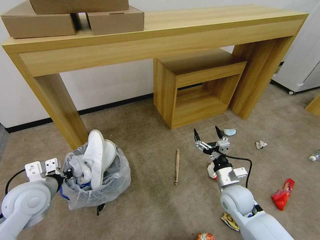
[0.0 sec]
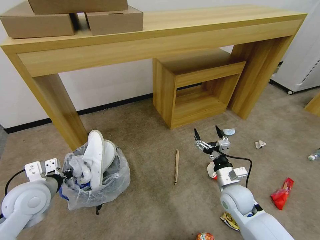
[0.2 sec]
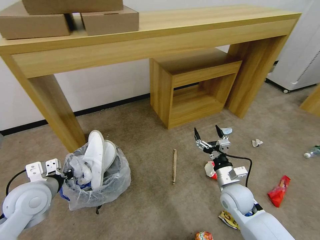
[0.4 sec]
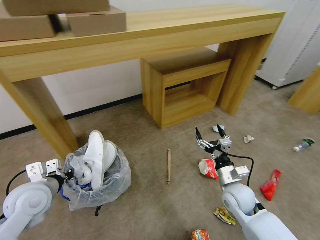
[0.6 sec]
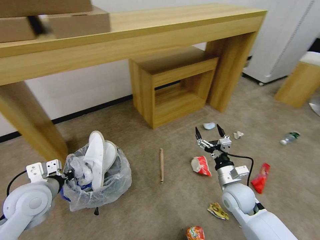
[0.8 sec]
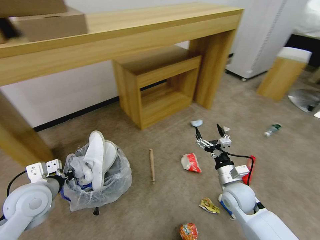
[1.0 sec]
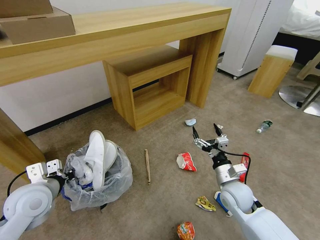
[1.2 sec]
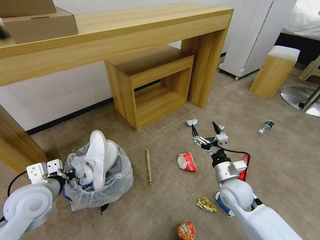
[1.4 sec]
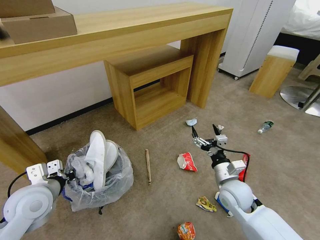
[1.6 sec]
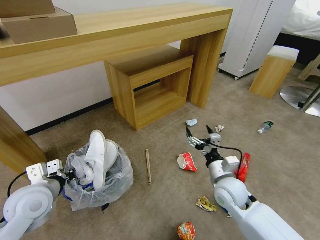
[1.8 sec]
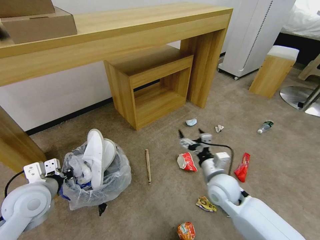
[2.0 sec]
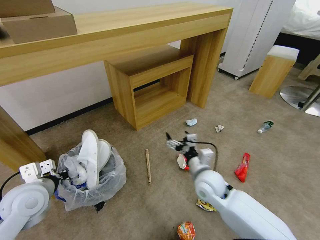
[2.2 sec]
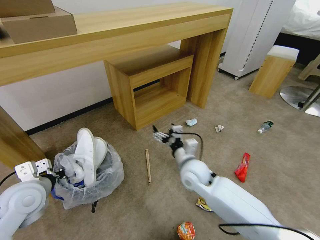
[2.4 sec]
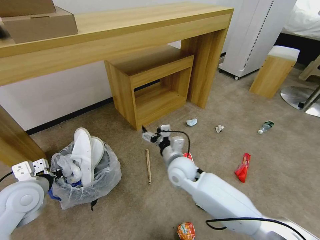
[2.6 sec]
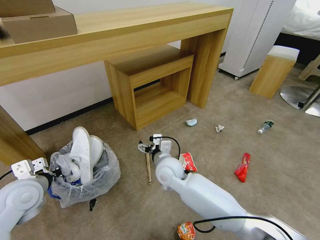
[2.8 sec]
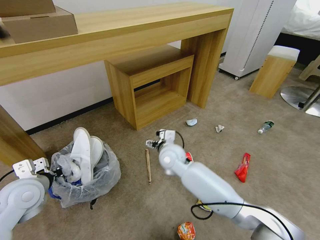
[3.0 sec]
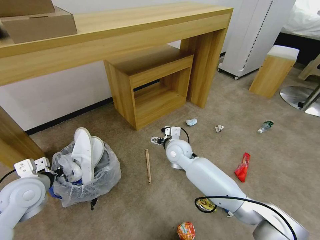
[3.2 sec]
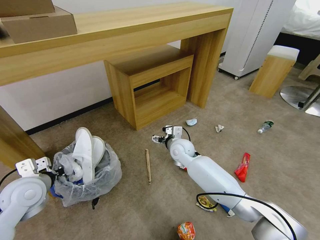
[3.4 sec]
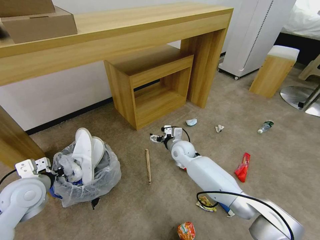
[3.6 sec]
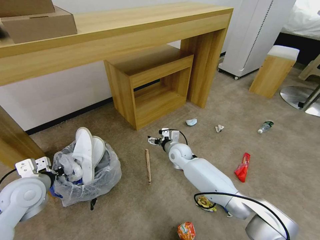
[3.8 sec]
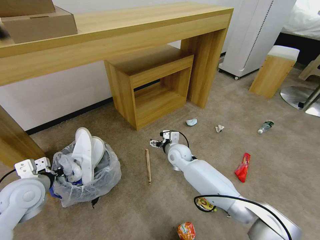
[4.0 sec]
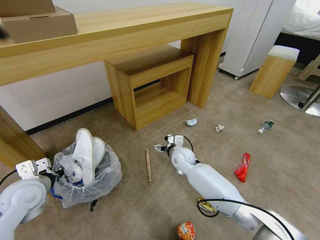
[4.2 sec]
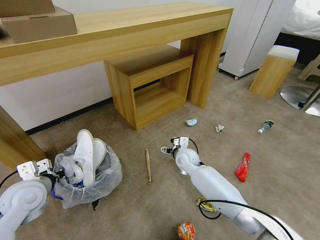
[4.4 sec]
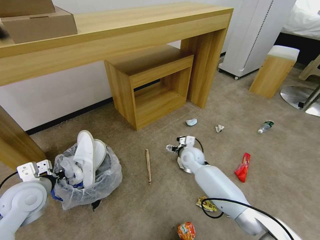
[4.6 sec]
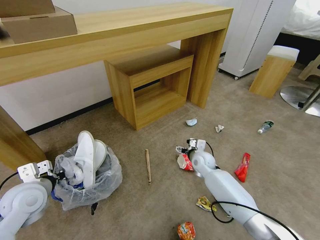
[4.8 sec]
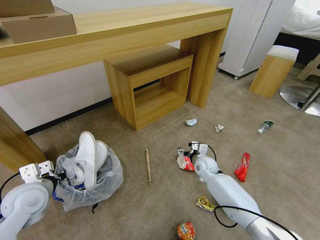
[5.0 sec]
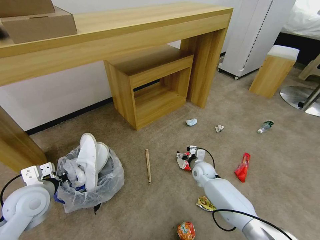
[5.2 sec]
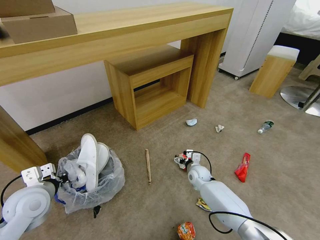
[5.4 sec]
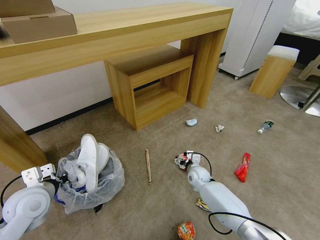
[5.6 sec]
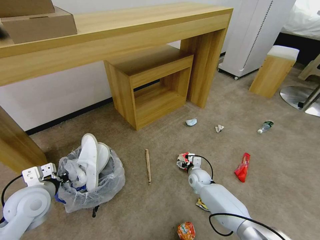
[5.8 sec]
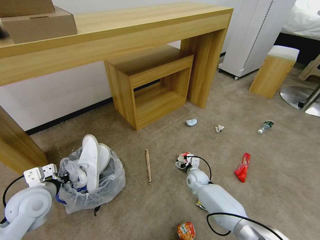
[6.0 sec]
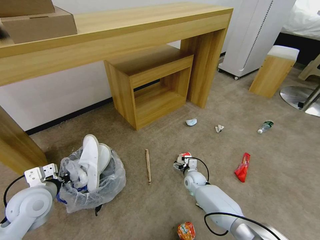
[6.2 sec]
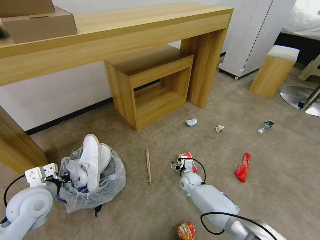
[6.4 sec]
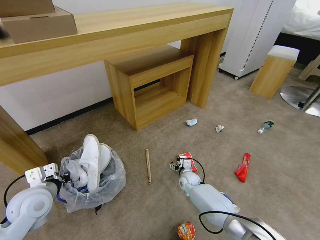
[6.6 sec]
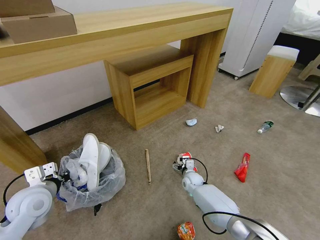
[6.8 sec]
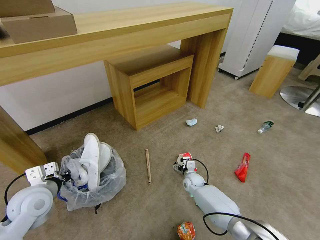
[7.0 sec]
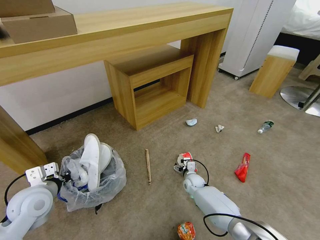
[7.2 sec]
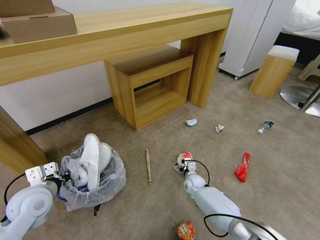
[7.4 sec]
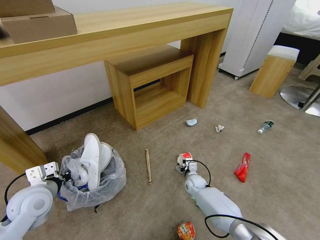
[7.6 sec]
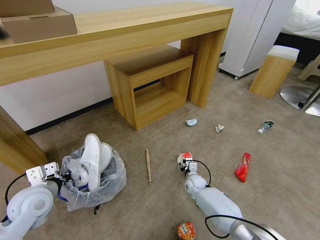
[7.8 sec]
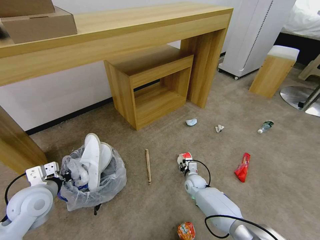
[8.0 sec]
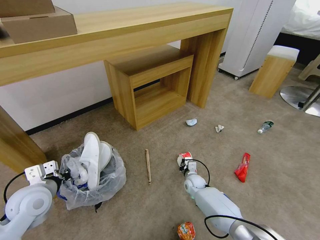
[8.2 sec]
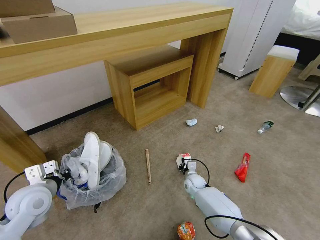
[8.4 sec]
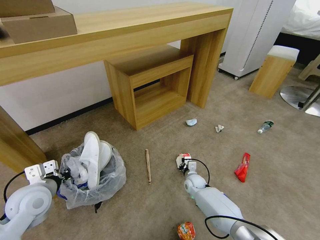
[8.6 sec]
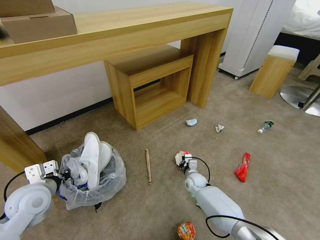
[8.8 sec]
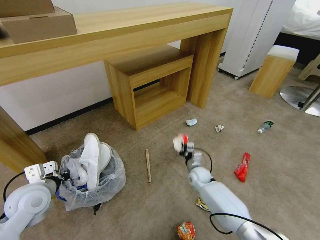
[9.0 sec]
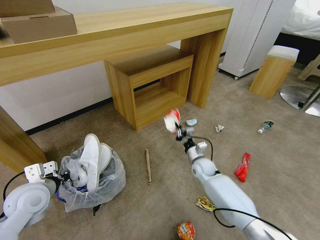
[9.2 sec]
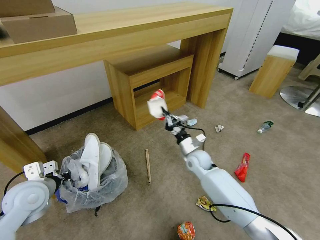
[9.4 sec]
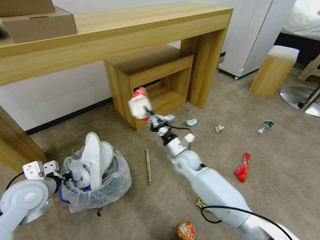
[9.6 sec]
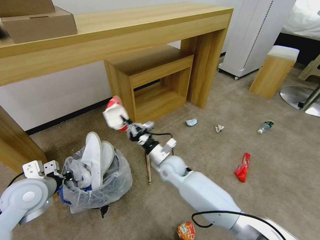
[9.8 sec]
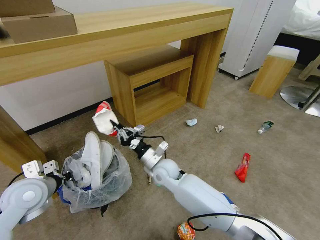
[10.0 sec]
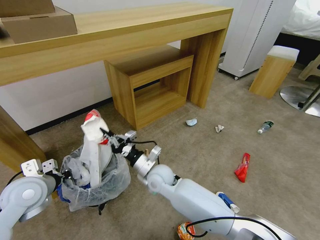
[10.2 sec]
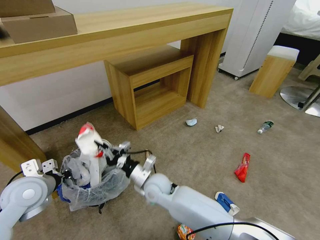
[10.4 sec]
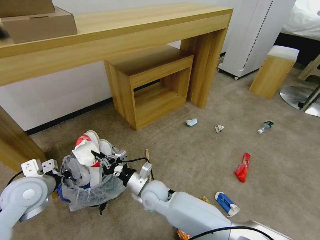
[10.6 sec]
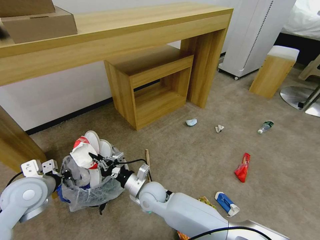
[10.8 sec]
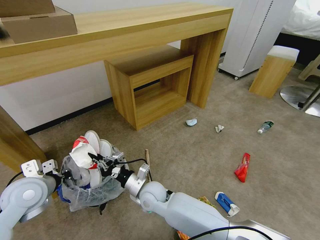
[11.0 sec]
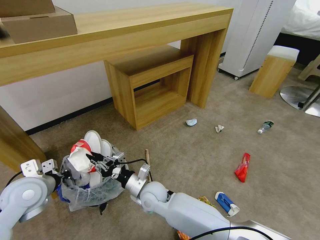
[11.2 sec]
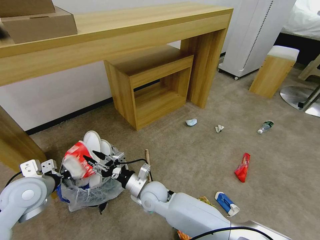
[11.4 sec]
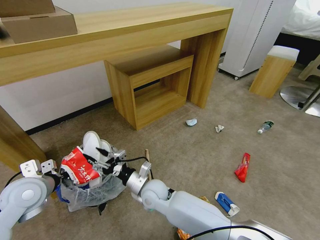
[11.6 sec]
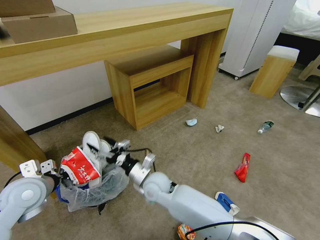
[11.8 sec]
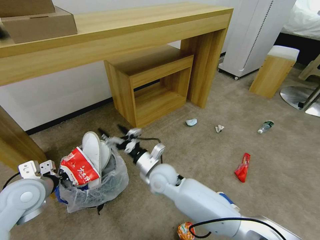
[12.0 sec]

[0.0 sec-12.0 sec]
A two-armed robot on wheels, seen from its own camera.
Task of the whole recording: Pick up the trash bin and place the garbage on the floor into it.
1.6 sec to 3.0 sec: The right gripper shifts about 25 cm to the left and forward.
3.0 sec to 4.4 sec: The right gripper travels downward and to the right by some 10 cm.
4.4 sec to 6.0 sec: The right gripper heads downward and to the right, covering roughly 15 cm.
6.0 sec to 7.6 sec: The grippers move only a little.
7.6 sec to 9.0 sec: The right gripper goes approximately 5 cm upward, and closes its fingers.
9.0 sec to 10.4 sec: The right gripper goes about 25 cm to the left, upward and backward.
10.4 sec to 12.0 sec: The right gripper moves approximately 5 cm, and opens its fingers.

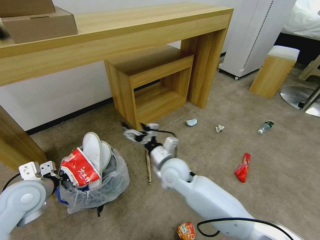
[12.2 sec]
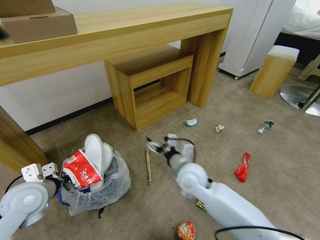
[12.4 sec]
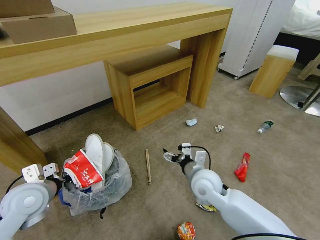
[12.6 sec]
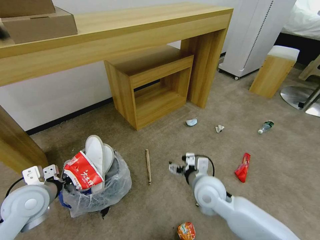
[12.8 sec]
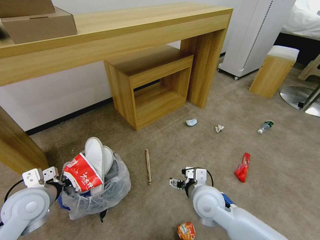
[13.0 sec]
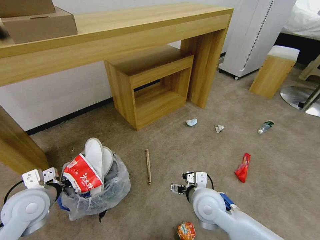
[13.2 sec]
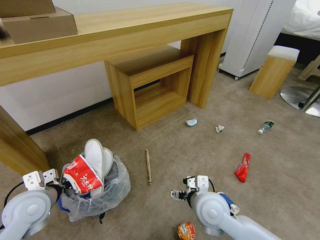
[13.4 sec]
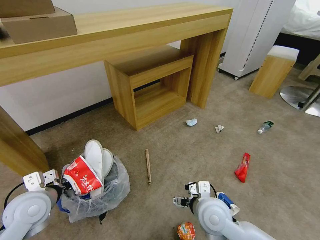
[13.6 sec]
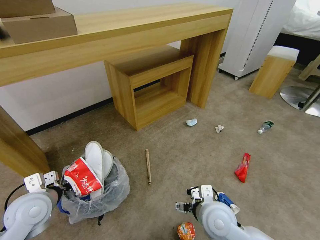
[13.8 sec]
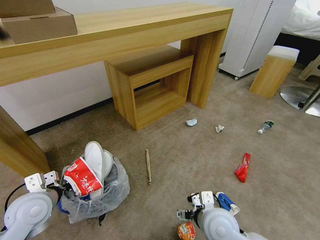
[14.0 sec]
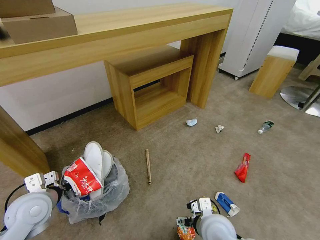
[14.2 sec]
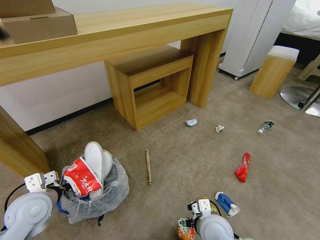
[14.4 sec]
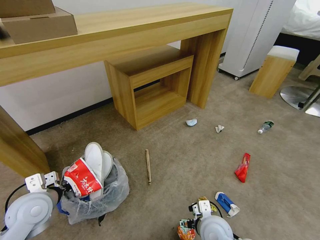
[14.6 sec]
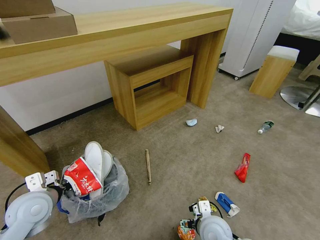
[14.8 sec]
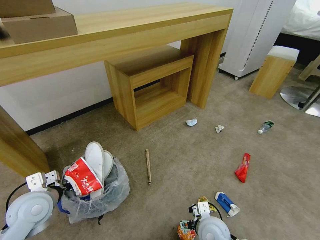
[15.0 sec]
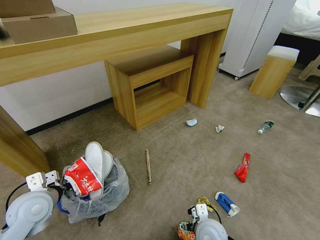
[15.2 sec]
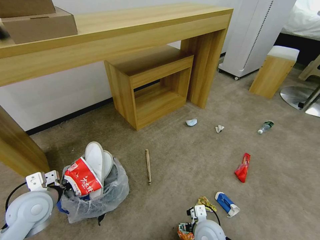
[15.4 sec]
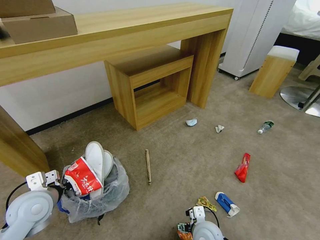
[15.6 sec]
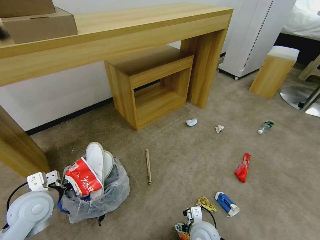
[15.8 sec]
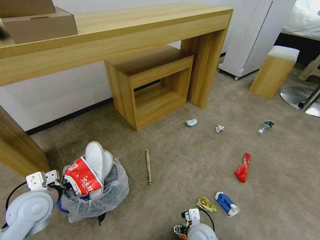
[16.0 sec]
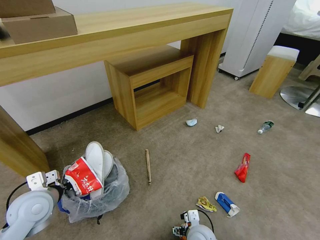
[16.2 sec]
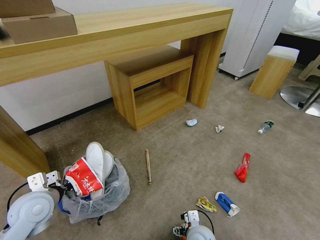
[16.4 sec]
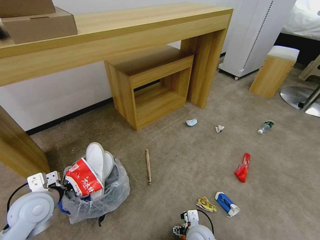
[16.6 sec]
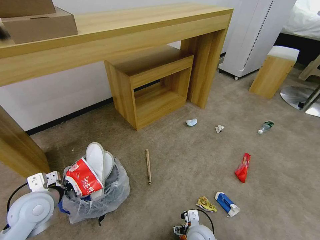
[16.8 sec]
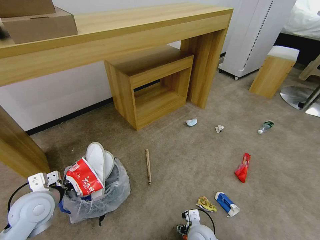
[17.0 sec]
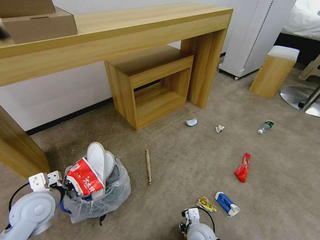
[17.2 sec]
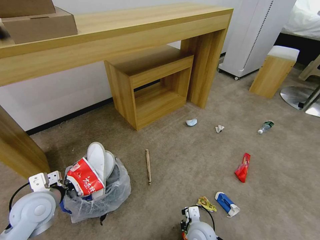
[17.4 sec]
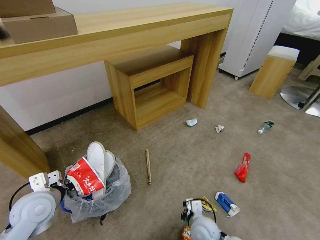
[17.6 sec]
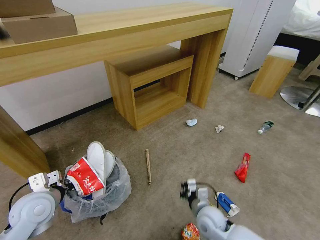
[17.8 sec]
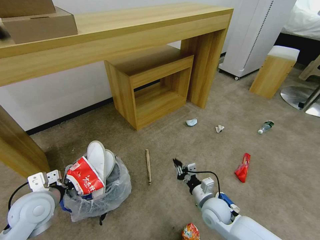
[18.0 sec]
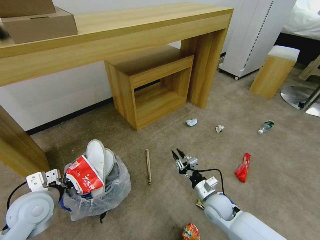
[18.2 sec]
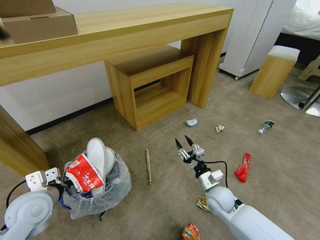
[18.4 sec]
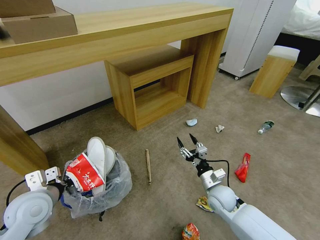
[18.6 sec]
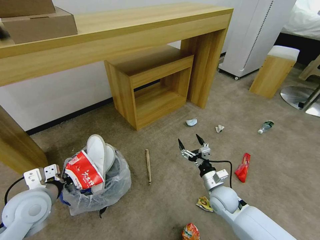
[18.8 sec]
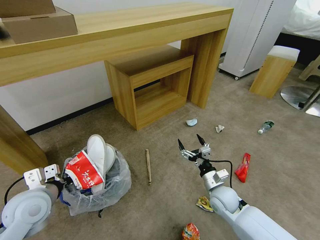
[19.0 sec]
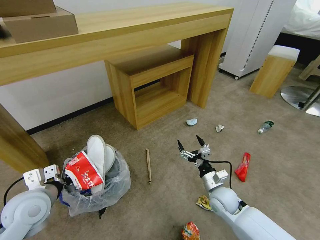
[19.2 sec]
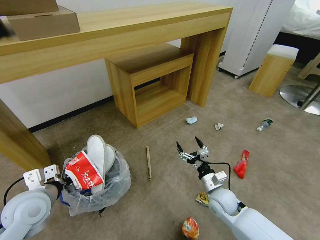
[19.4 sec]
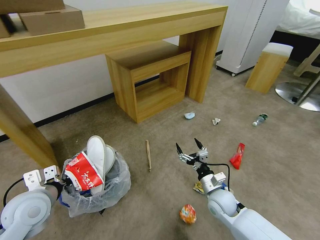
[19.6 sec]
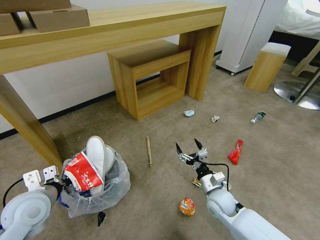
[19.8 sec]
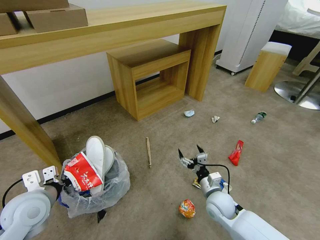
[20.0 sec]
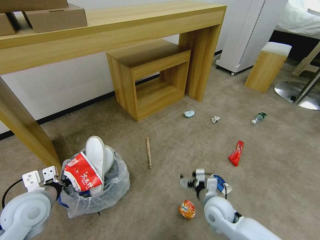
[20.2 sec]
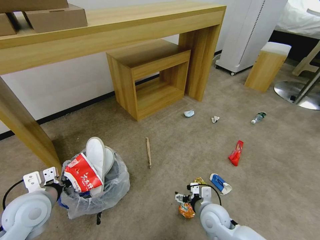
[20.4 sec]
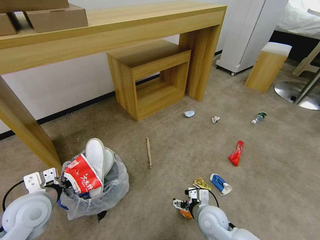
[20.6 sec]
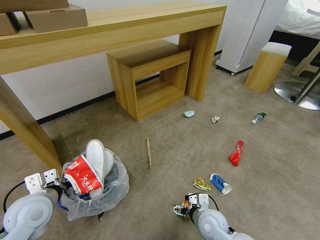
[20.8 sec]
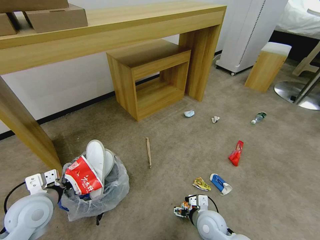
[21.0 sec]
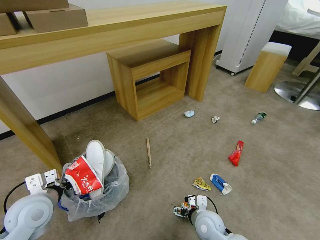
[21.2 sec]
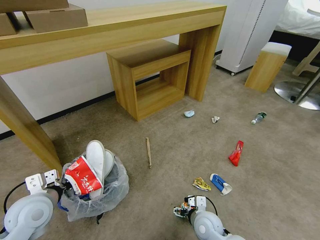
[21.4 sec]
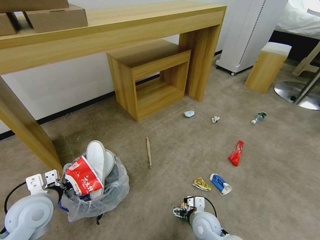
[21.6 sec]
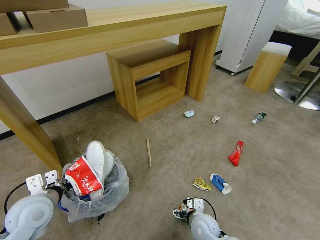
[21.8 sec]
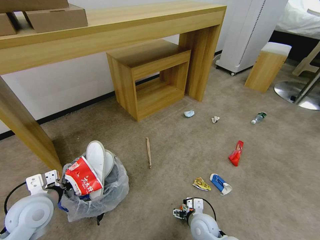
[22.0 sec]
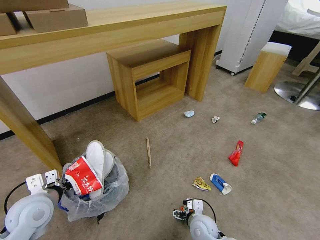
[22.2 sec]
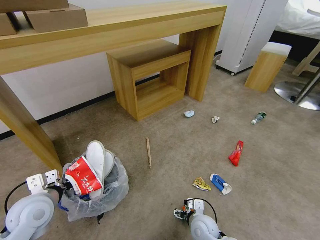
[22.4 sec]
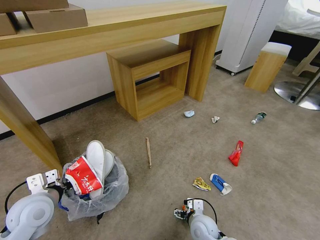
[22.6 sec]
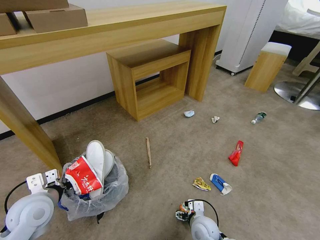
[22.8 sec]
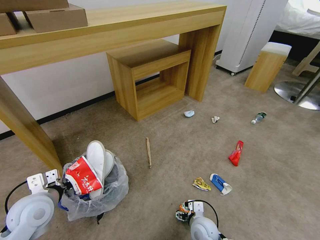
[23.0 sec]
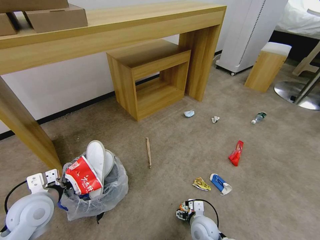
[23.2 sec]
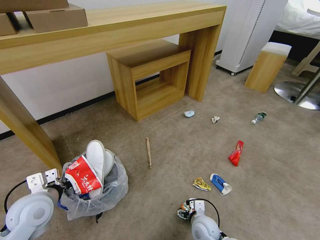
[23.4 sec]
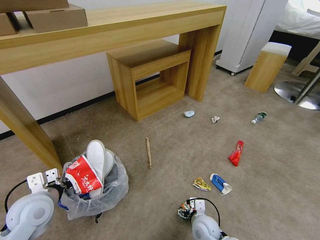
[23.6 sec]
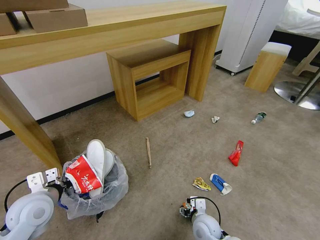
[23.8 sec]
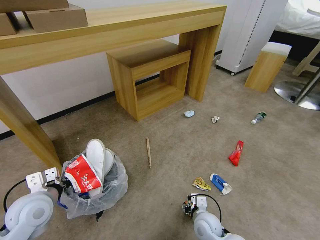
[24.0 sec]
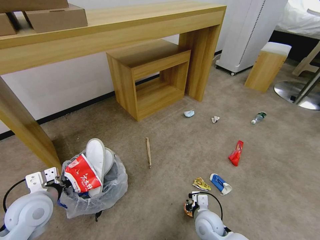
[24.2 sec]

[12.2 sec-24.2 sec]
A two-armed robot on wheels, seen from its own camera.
Task of the whole recording: Pick up the trash bin and place the garbage on the floor into it.
12.2 sec to 13.8 sec: The right gripper moves backward and to the right, about 15 cm.
13.8 sec to 15.2 sec: The right gripper goes roughly 10 cm downward.
15.2 sec to 16.6 sec: The right gripper heads downward, covering roughly 5 cm.
16.6 sec to 18.2 sec: The right gripper heads forward and to the right, covering approximately 10 cm, and closes up.
18.2 sec to 19.8 sec: The right gripper opens.
19.8 sec to 21.2 sec: The right gripper heads backward and to the left, covering some 10 cm.
21.2 sec to 22.6 sec: The grippers move only a little.
22.6 sec to 24.2 sec: The right gripper closes up.
